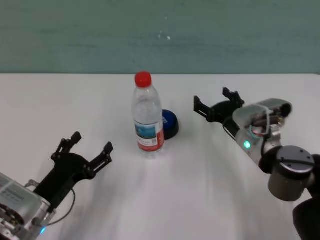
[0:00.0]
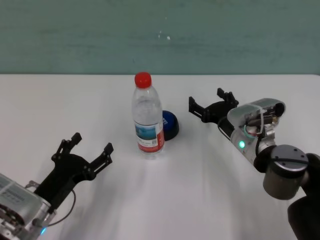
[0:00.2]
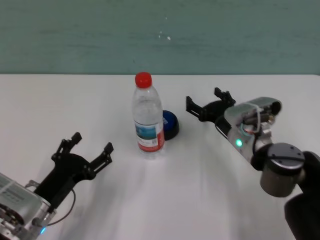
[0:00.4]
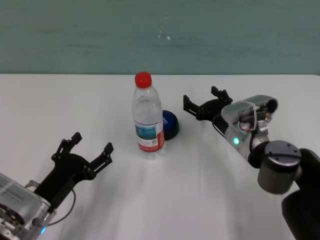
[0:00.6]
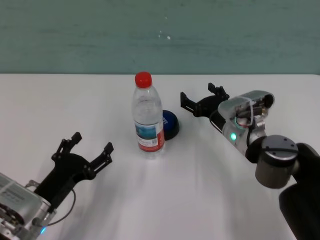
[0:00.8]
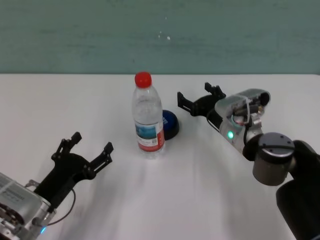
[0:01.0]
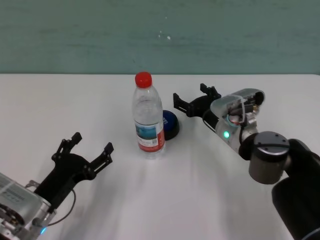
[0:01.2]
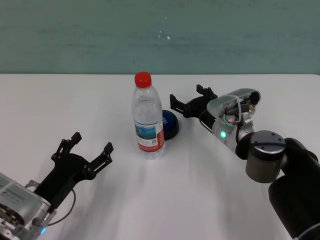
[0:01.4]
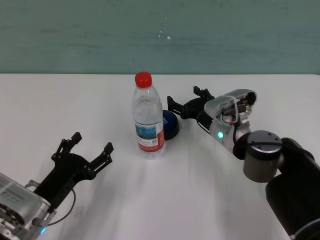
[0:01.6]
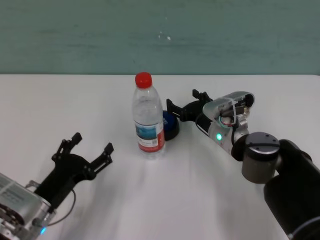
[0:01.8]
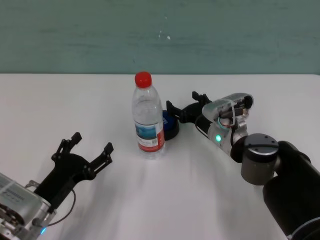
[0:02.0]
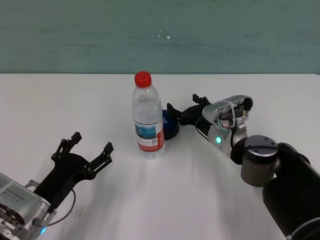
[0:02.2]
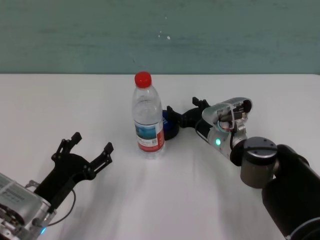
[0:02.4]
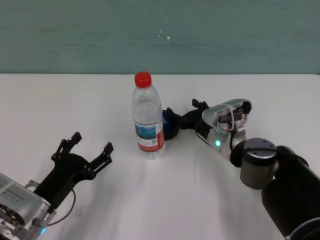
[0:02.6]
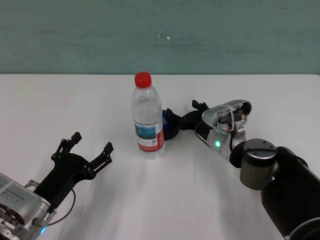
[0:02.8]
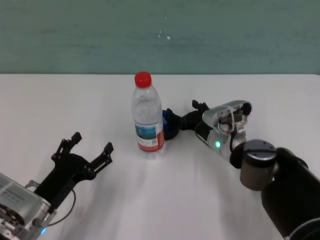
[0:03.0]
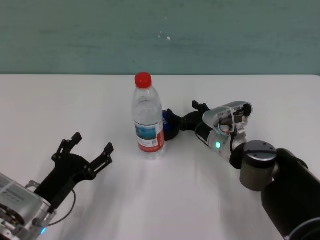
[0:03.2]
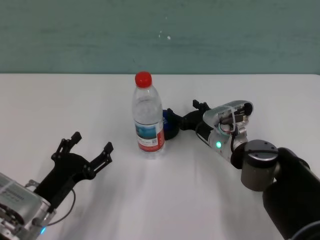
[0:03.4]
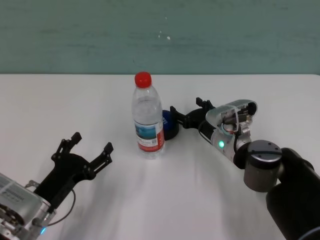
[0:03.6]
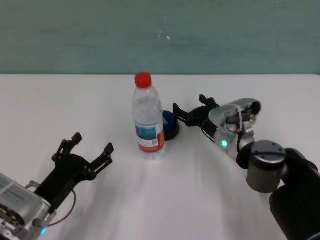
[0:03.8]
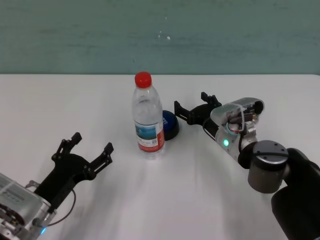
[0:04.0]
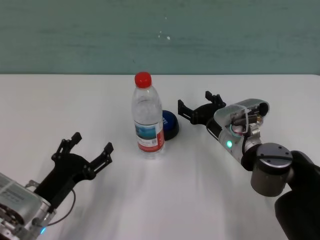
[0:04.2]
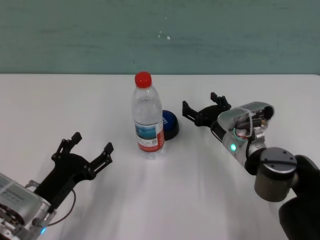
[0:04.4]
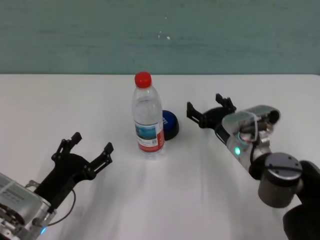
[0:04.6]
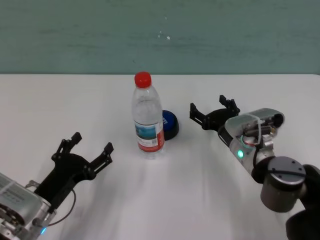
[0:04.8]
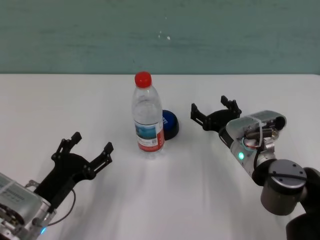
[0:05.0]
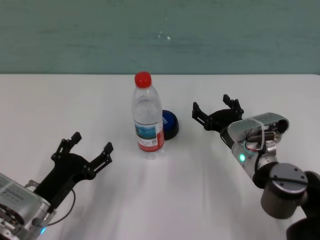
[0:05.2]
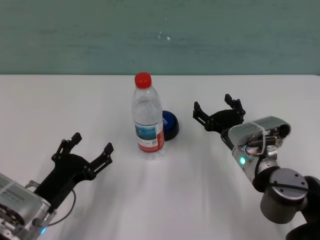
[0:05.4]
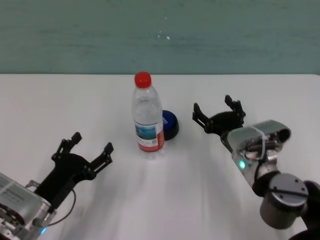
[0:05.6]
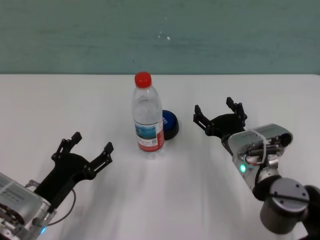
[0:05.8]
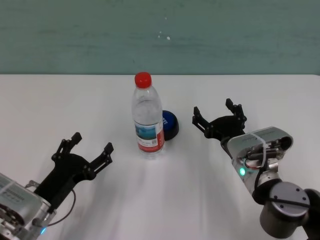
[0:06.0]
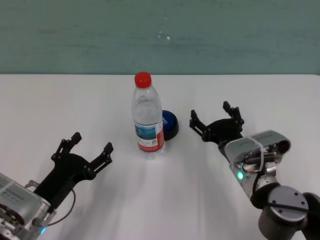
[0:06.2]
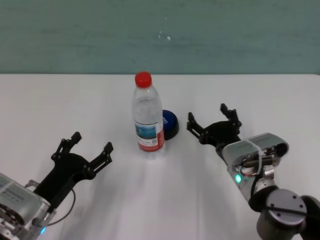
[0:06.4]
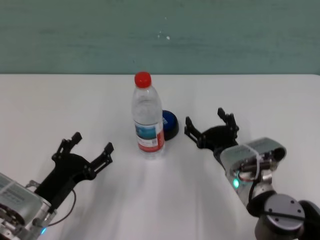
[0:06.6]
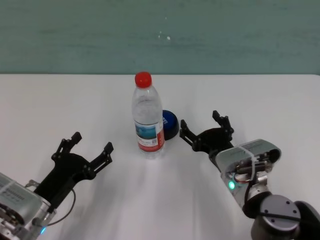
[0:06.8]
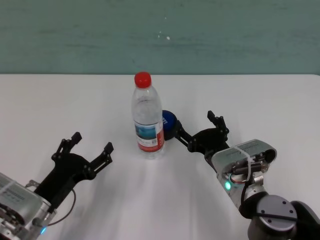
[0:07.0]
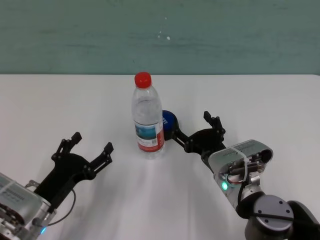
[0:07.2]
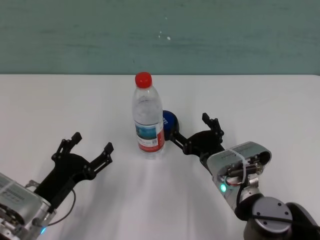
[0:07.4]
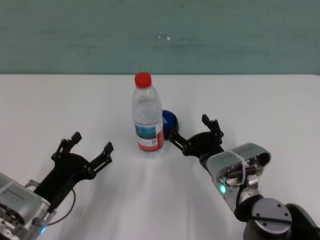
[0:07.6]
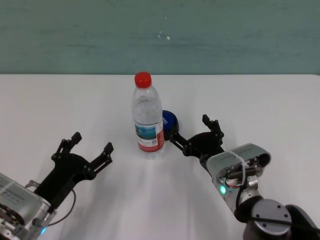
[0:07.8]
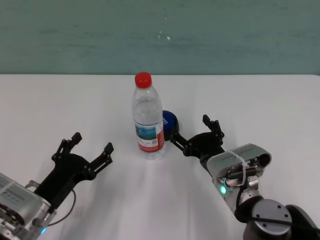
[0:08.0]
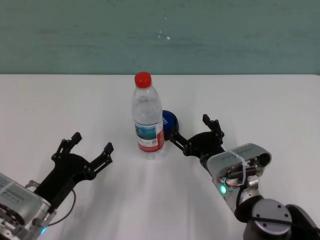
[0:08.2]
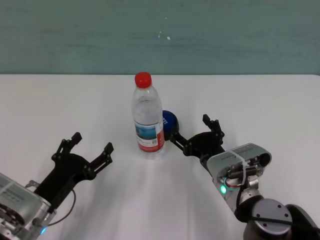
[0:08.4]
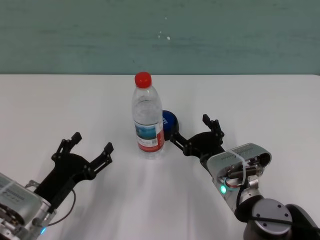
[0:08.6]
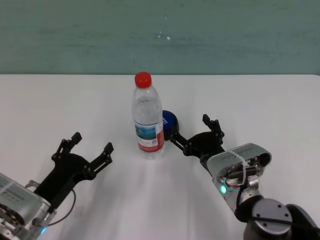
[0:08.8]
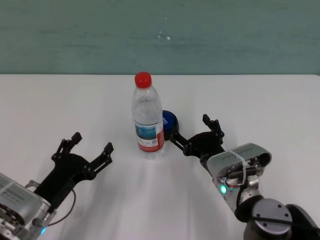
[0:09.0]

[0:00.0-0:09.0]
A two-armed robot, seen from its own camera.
Task of the whole recording: after avoiding the water bottle on the table, press the button.
Step, 0:00.0 to 0:03.6: Press the button blocked by the bottle with right gripper.

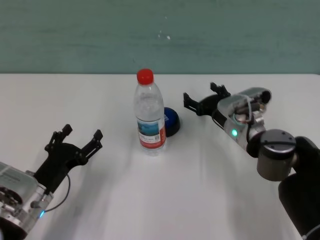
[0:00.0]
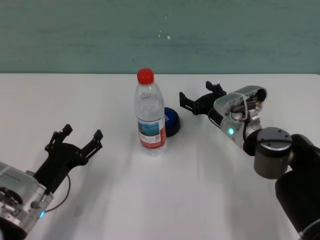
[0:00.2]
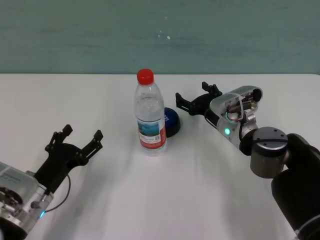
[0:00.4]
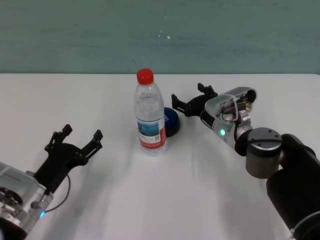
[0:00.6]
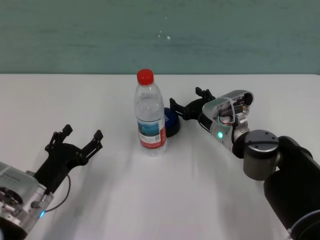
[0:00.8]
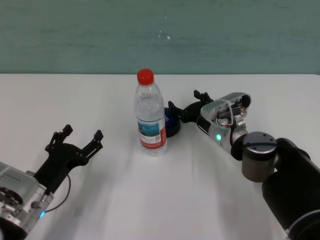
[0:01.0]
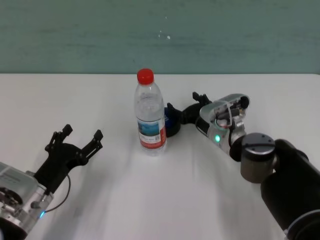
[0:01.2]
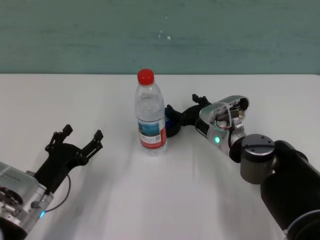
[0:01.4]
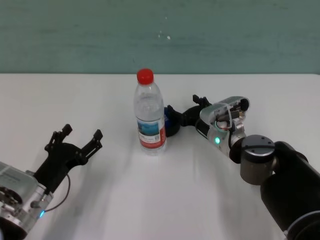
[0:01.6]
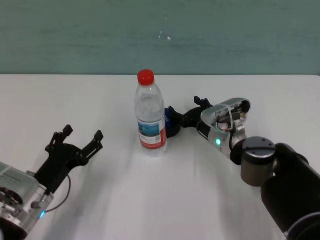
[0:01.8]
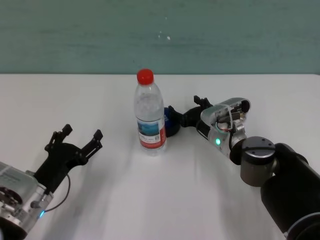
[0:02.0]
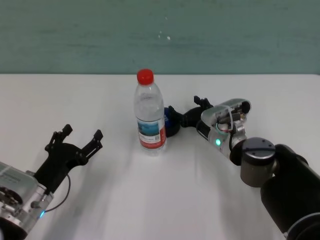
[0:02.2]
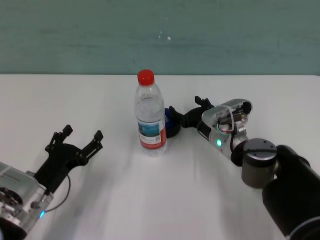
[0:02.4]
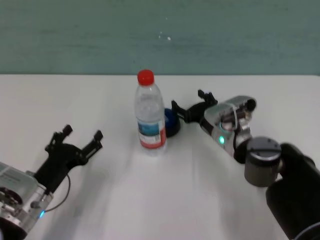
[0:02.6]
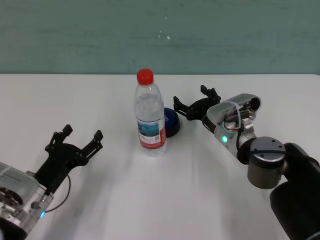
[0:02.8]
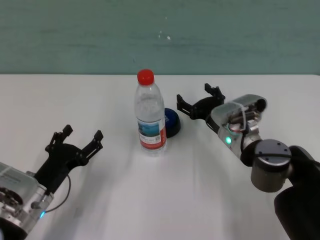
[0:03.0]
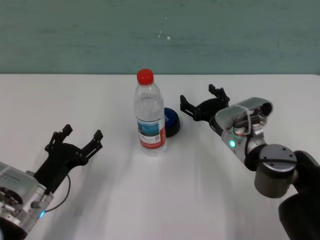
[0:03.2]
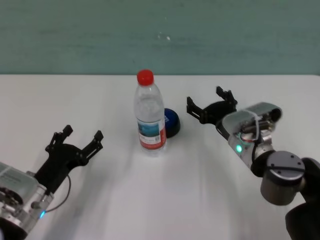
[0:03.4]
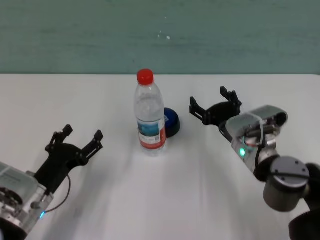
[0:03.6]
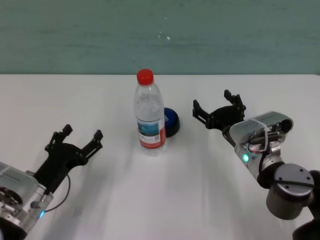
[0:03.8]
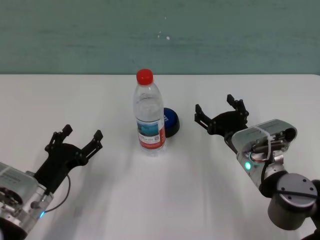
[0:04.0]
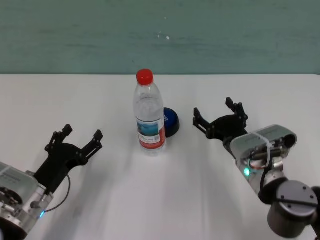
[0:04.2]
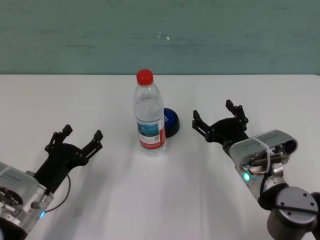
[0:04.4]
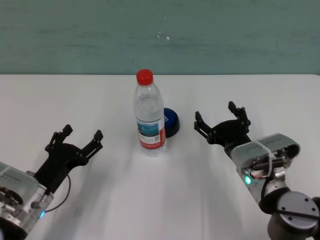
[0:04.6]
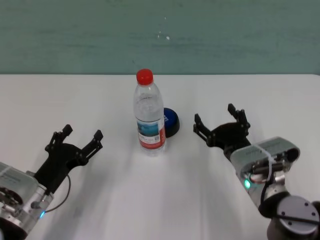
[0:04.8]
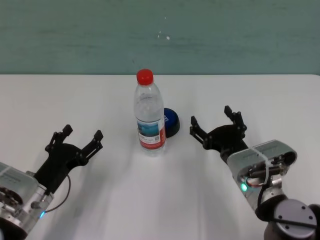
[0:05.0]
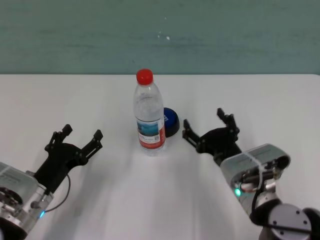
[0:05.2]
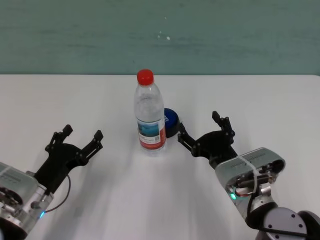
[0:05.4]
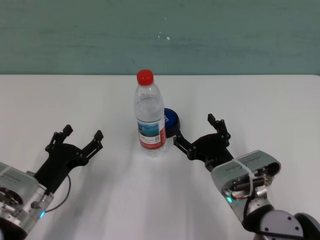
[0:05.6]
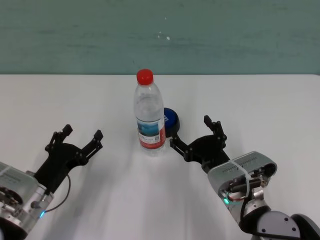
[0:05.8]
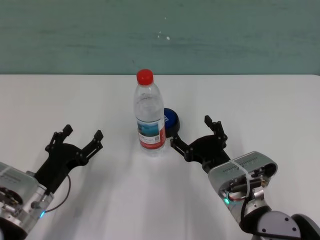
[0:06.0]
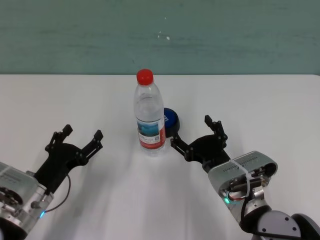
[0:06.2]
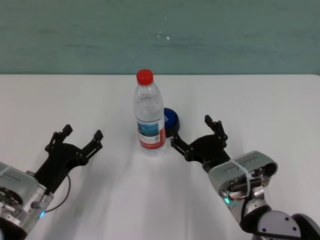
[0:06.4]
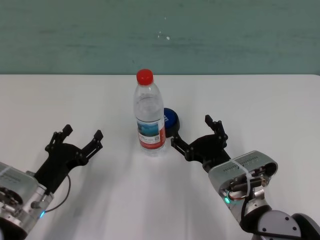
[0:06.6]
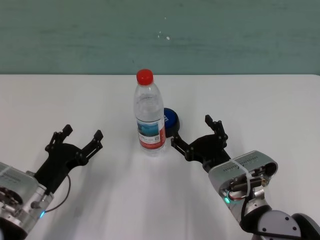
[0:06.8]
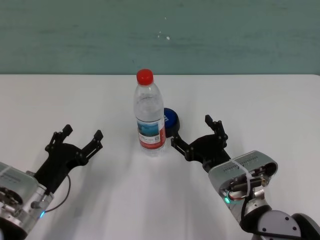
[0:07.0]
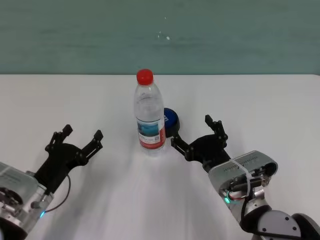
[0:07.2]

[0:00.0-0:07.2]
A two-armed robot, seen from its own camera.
Task of the whole recording: after avoiding the water bottle on the table, press the button.
Step, 0:00.0 to 0:02.4: Press the button blocked by the bottle with right gripper.
